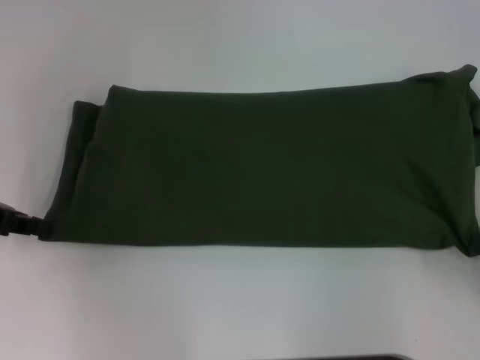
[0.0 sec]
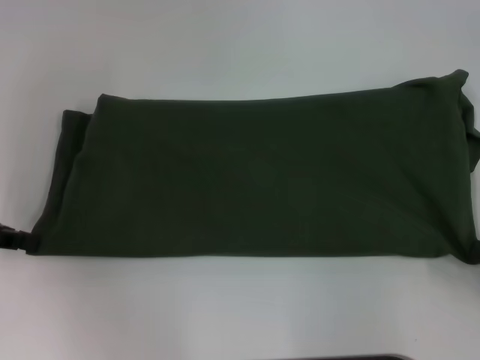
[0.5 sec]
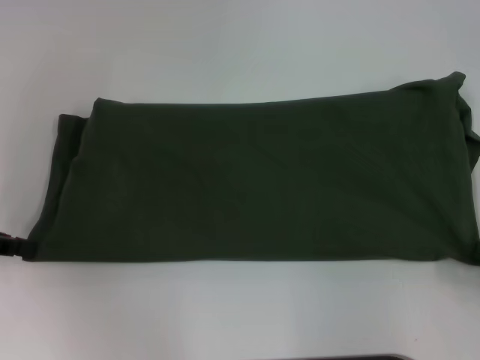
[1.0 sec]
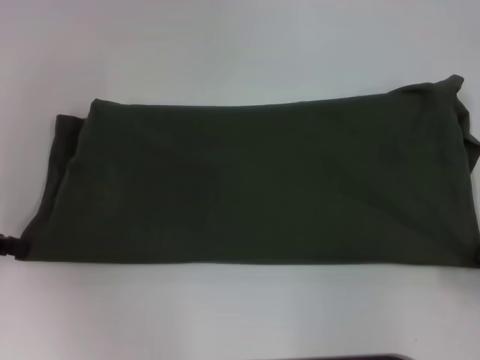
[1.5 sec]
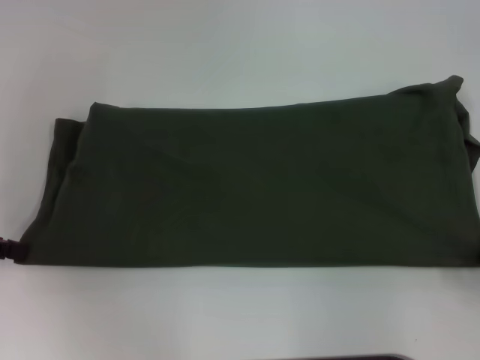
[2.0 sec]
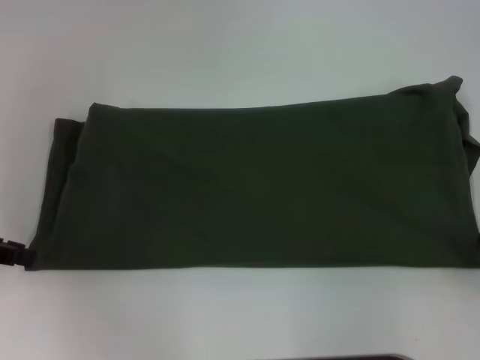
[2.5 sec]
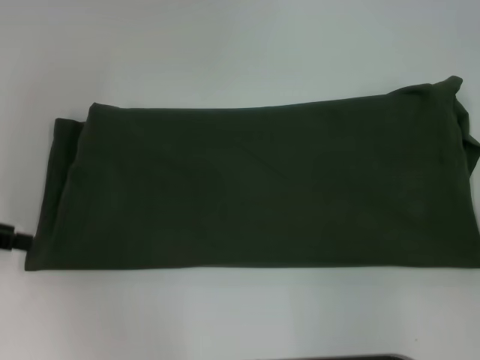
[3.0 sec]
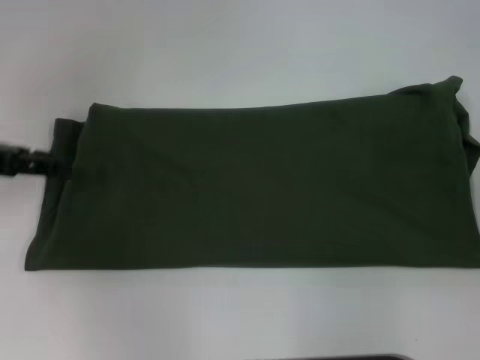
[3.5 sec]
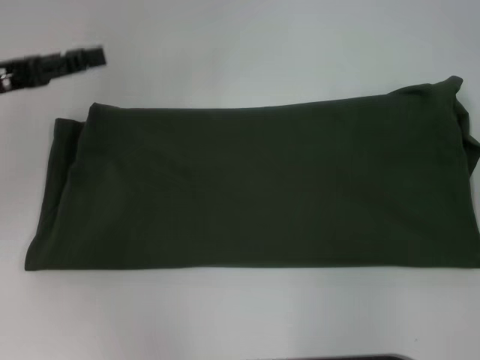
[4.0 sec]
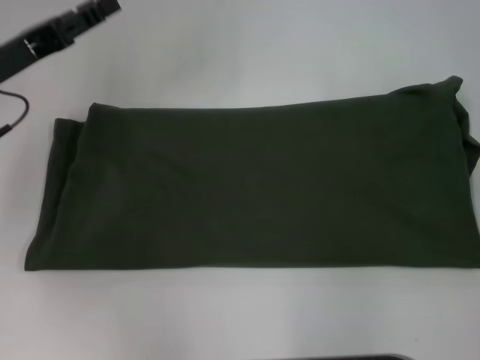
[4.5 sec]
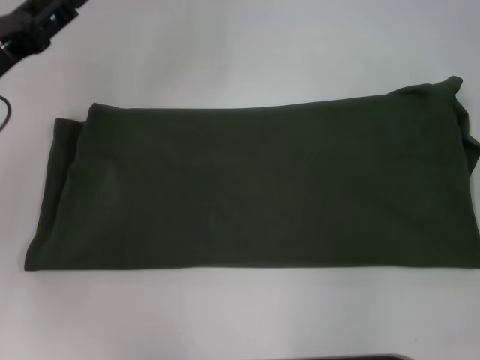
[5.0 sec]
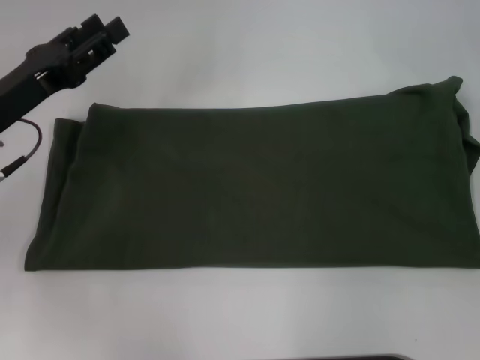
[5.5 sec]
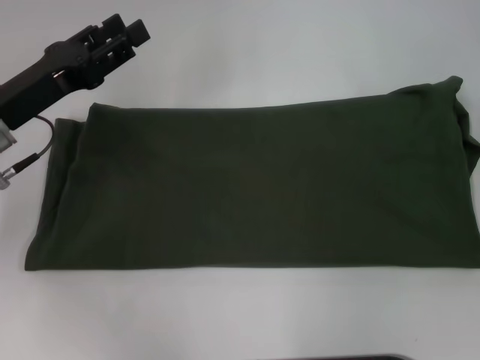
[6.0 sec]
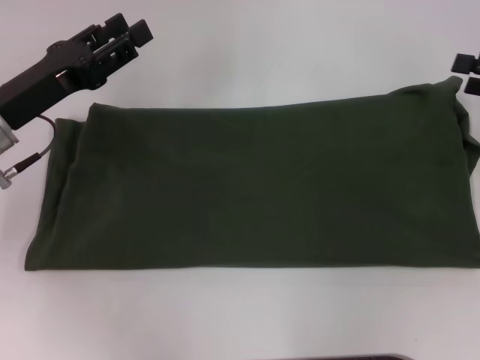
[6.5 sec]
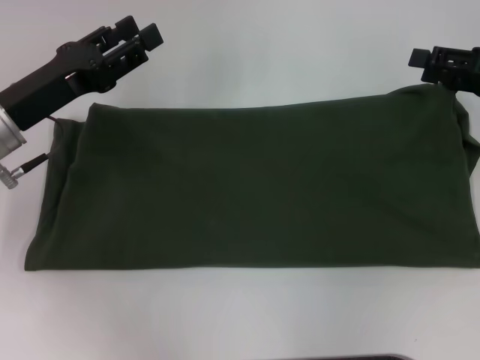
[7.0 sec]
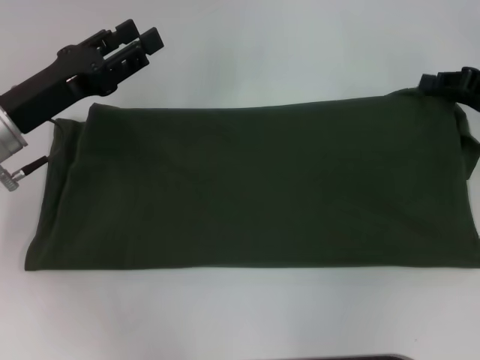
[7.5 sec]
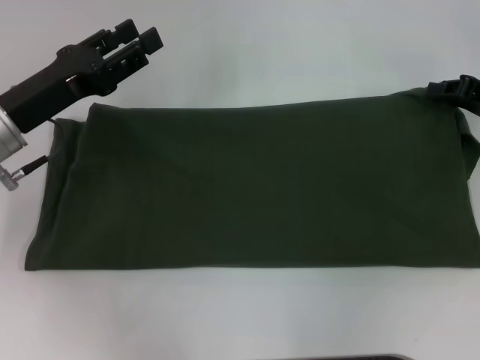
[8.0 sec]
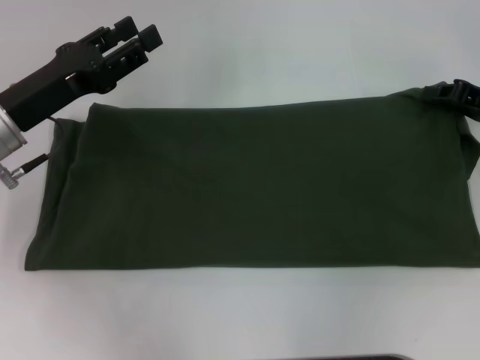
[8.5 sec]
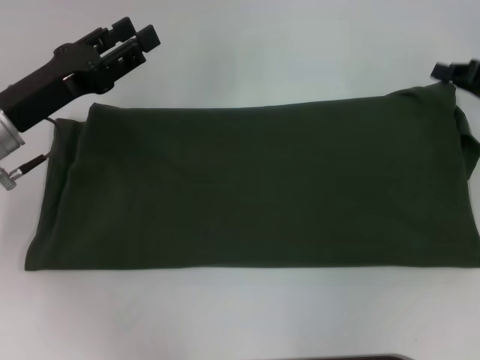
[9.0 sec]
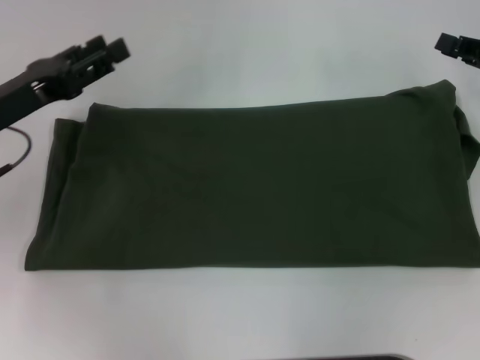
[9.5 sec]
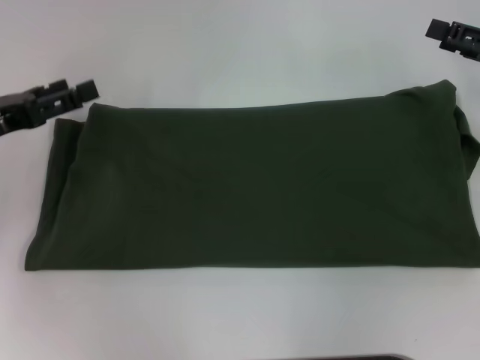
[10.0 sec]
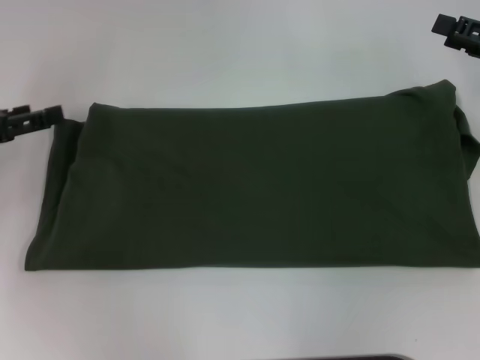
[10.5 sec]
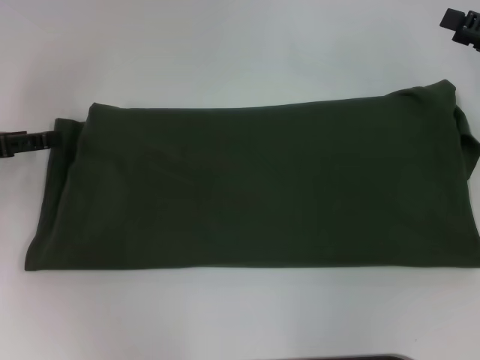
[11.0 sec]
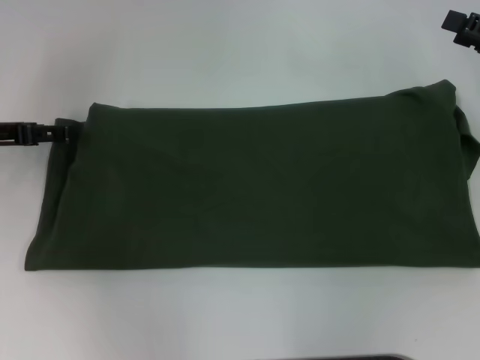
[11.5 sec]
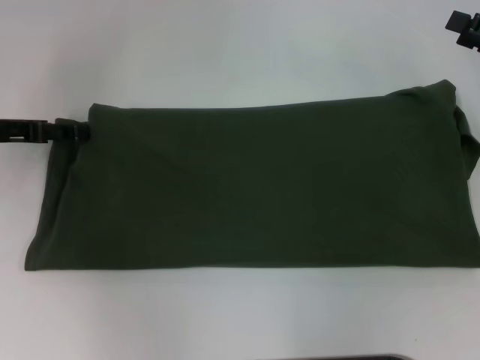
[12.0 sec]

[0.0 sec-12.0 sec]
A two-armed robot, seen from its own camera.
0.0 sec to 2.0 sec: The grippers make only small movements.
2.0 sec to 4.0 sec: The left gripper heads to the right, covering some 5 cm, and opens its fingers.
4.0 sec to 6.0 sec: The left gripper shifts approximately 5 cm to the right.
6.0 sec to 8.0 sec: The right gripper travels to the left and downward by about 10 cm, and closes.
8.0 sec to 10.0 sec: The right gripper opens its fingers, while the left gripper heads to the left, covering roughly 5 cm.
10.0 sec to 12.0 sec: The left gripper shifts about 5 cm forward.

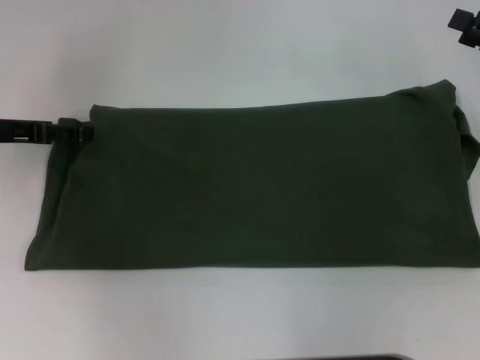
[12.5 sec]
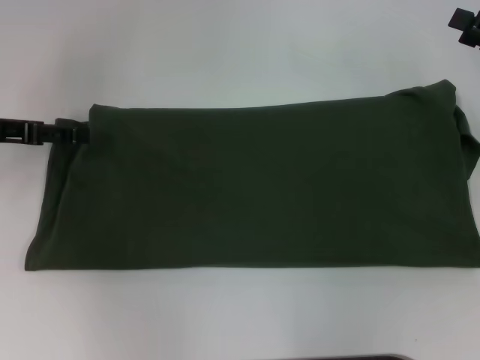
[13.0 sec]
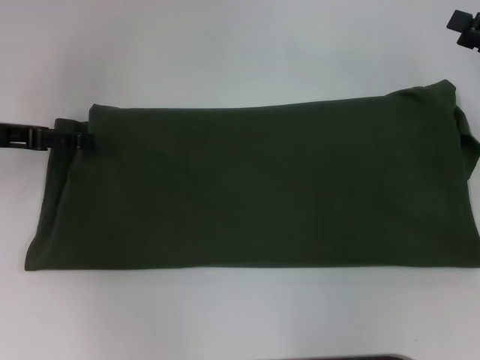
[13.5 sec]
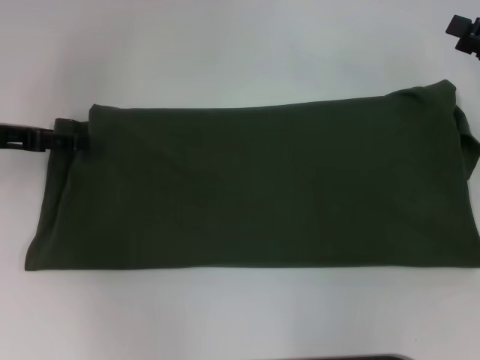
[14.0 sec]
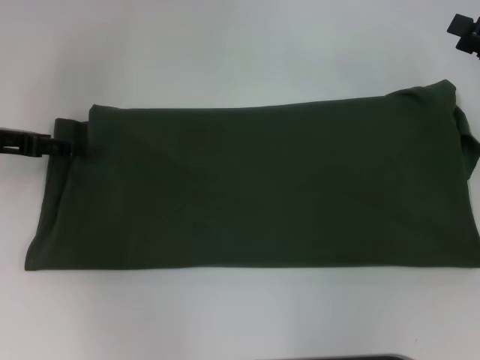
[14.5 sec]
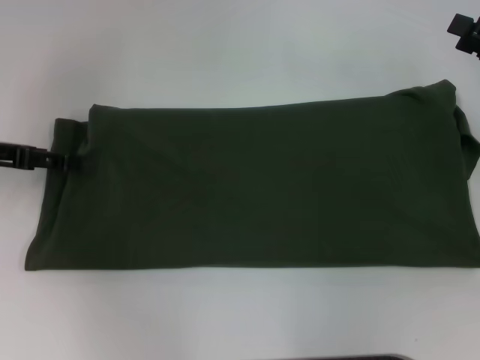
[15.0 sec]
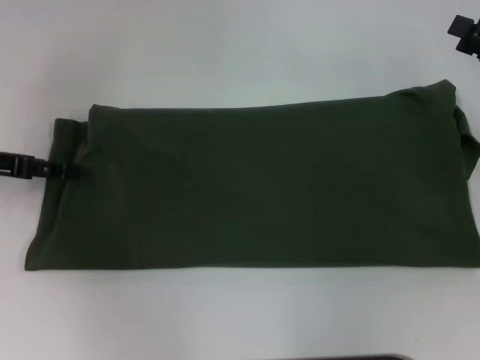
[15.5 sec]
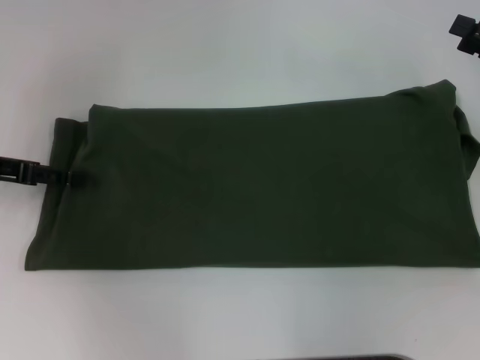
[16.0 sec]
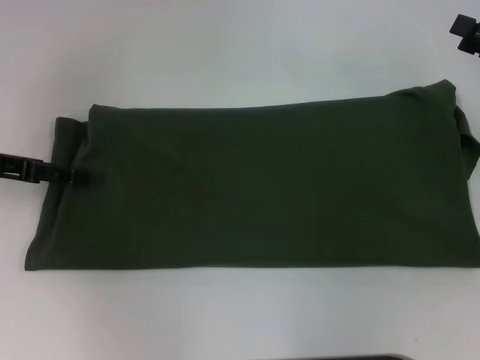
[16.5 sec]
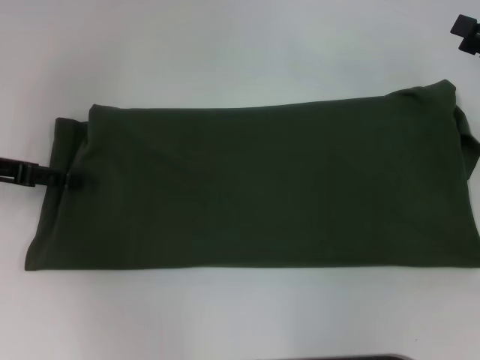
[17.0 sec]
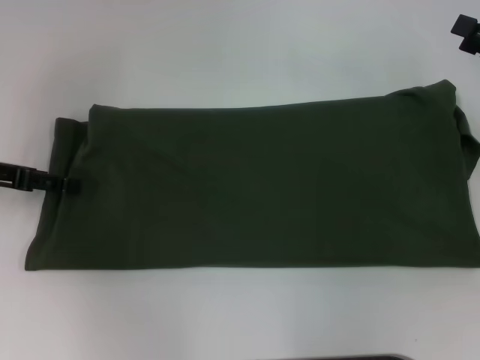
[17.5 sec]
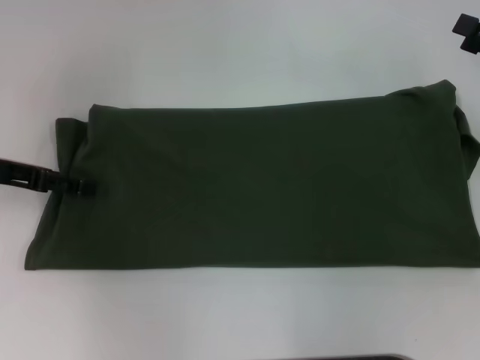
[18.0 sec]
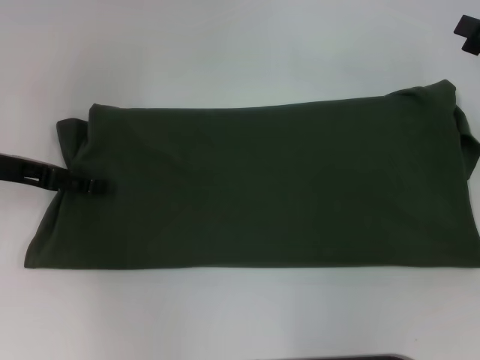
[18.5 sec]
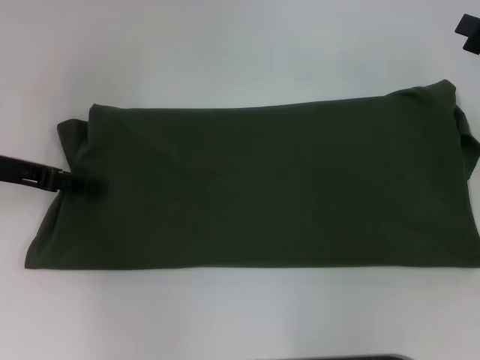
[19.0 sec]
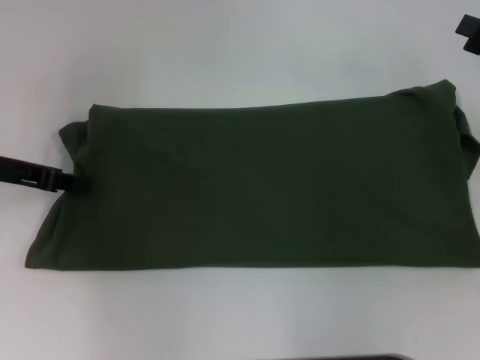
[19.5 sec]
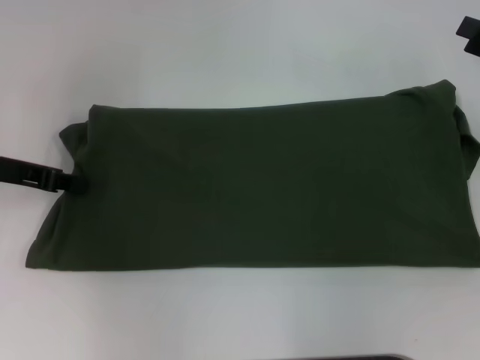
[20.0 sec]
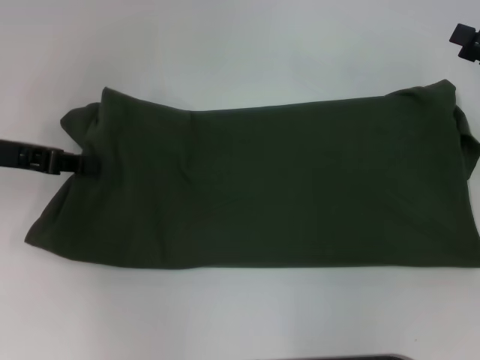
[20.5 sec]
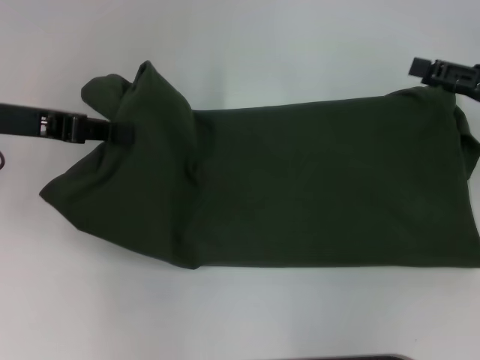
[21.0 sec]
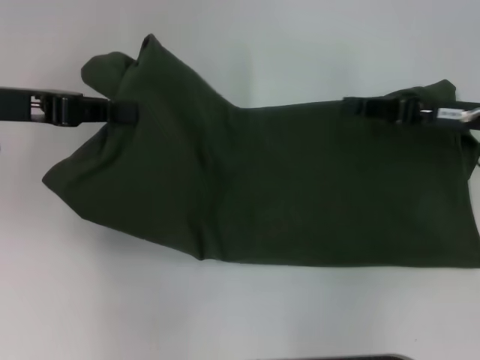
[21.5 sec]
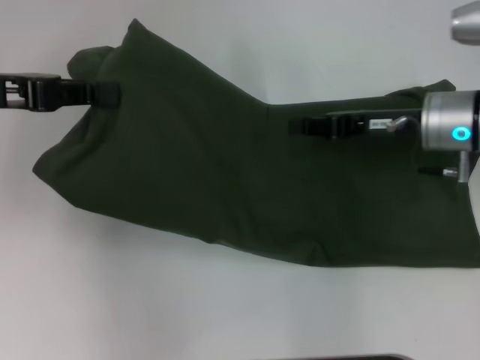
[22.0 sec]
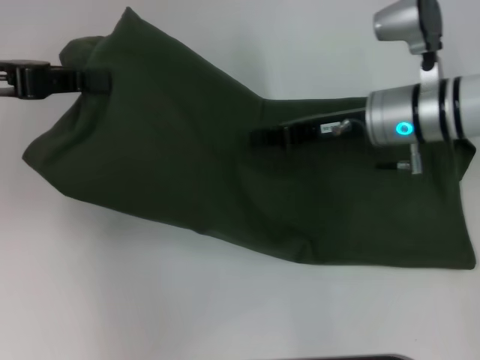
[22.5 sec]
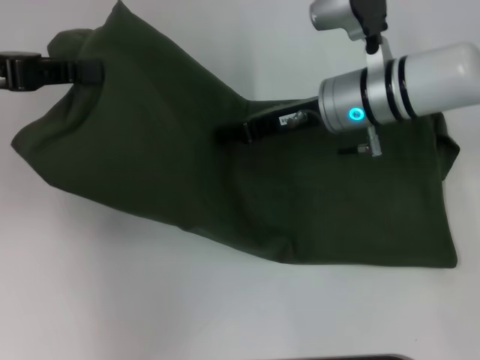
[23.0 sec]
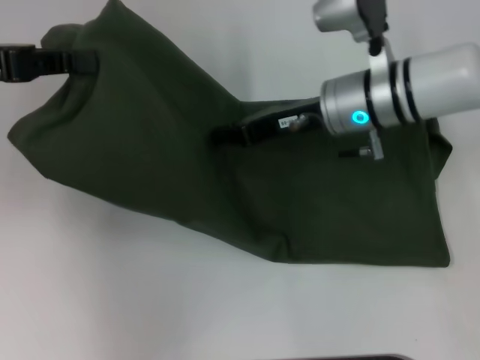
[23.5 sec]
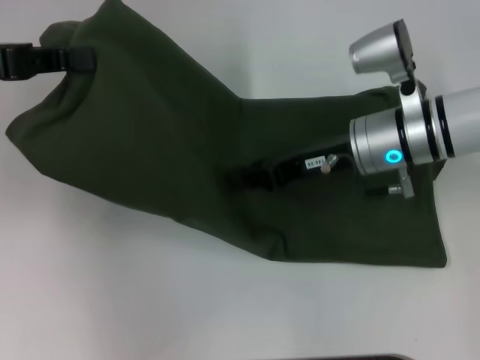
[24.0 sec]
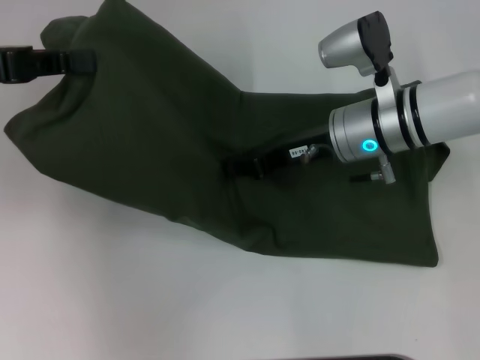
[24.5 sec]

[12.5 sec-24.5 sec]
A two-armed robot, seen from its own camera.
12.5 sec to 18.5 sec: The grippers make only small movements.
18.5 sec to 20.5 sec: The left gripper closes up.
20.5 sec to 22.5 sec: The right gripper shifts approximately 20 cm to the left, and closes up. The left gripper heads upward, covering some 5 cm.

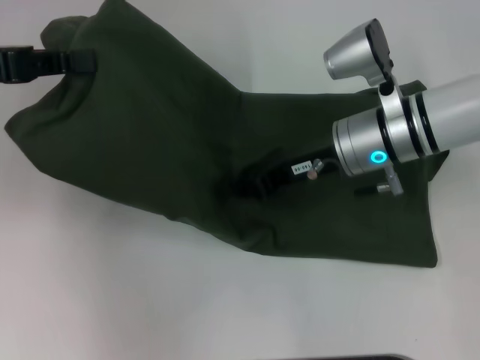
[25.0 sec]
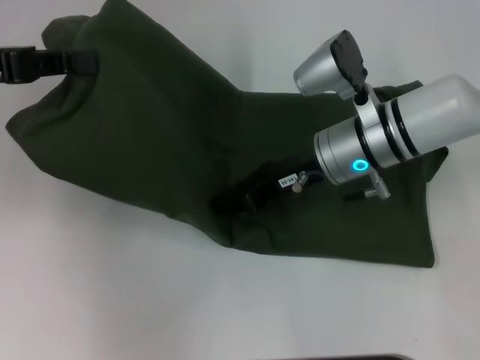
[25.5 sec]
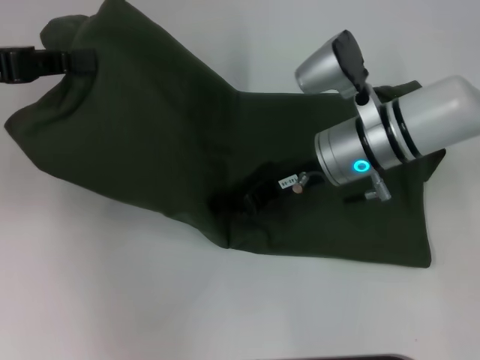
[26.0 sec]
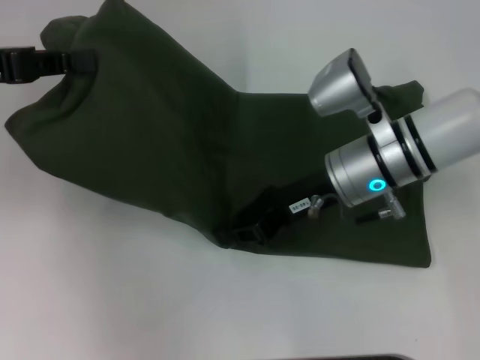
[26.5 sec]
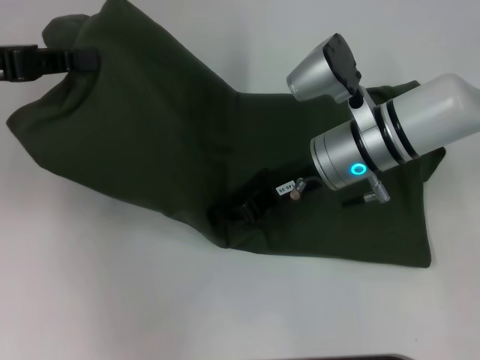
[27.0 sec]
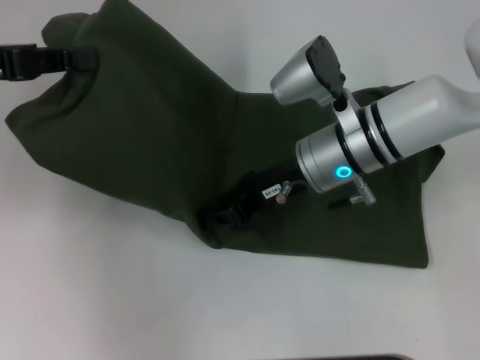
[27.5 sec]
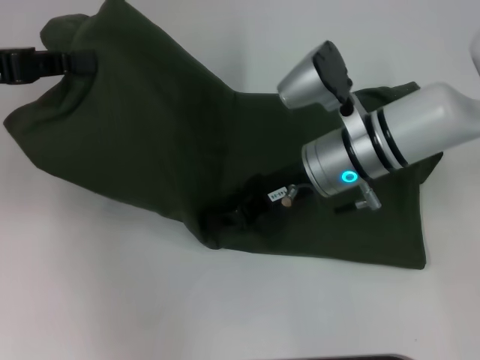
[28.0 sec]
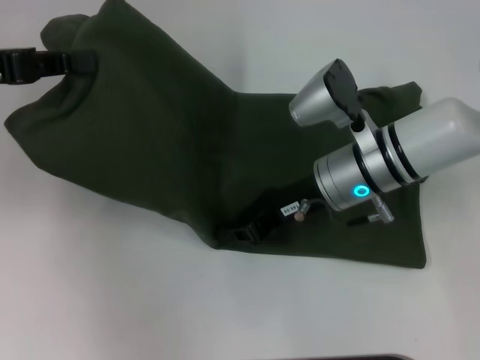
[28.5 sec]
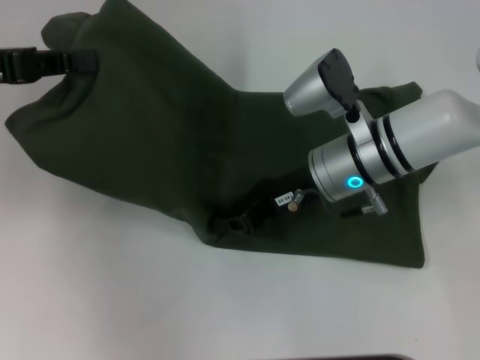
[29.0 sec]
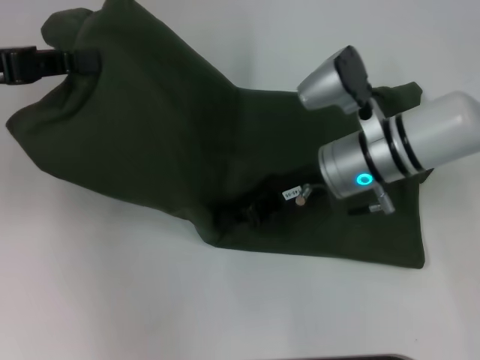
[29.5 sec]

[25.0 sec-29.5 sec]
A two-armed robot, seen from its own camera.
25.0 sec to 29.5 sec: The grippers move only a little.
